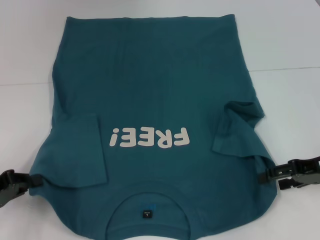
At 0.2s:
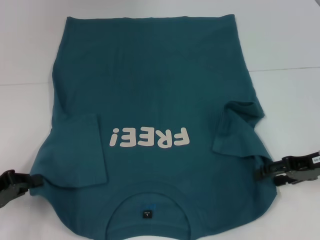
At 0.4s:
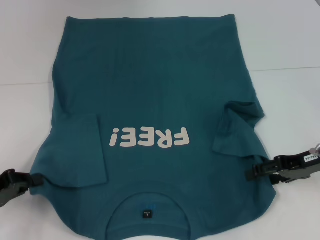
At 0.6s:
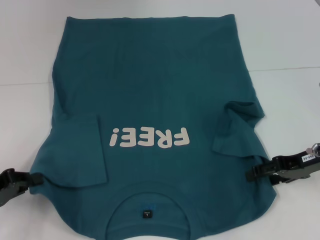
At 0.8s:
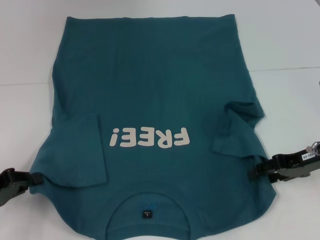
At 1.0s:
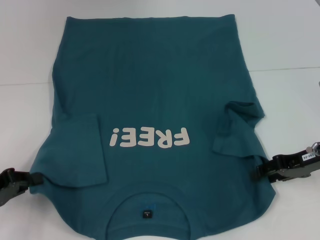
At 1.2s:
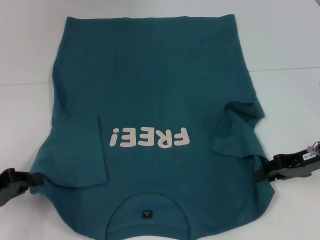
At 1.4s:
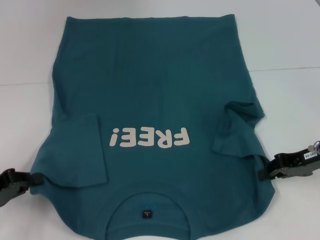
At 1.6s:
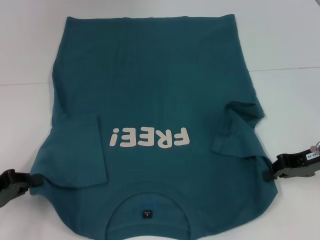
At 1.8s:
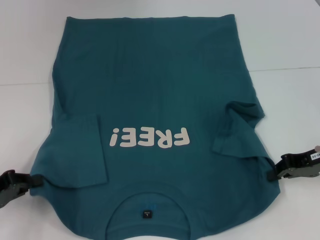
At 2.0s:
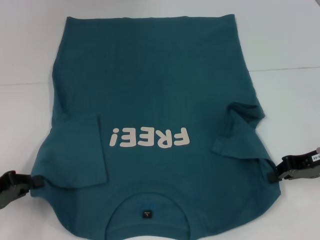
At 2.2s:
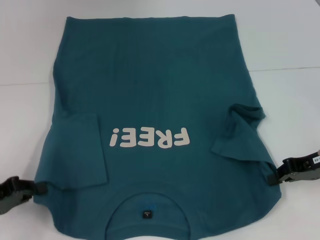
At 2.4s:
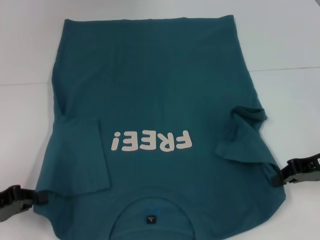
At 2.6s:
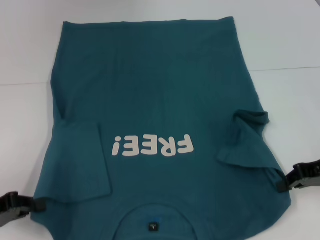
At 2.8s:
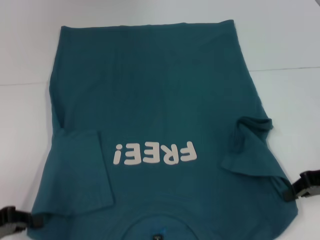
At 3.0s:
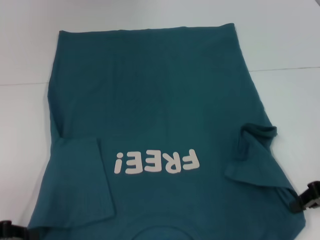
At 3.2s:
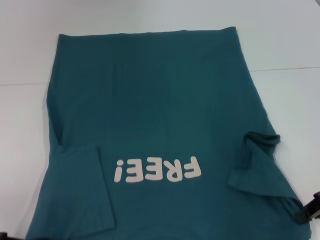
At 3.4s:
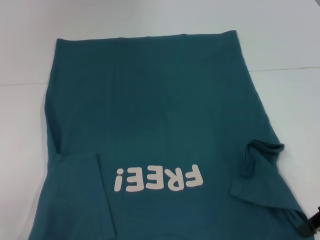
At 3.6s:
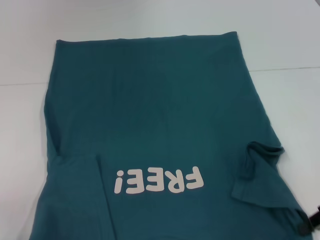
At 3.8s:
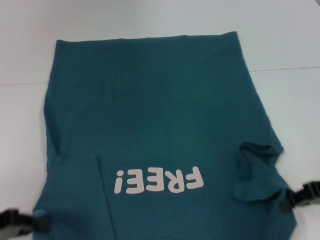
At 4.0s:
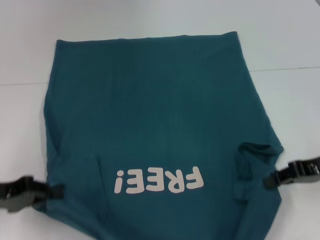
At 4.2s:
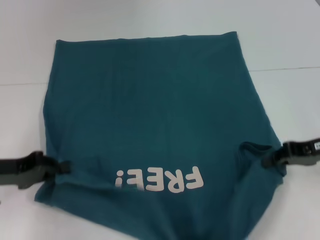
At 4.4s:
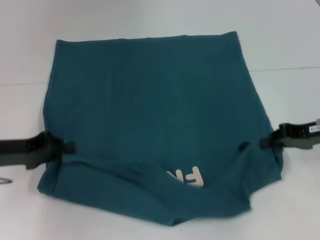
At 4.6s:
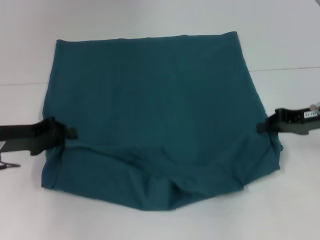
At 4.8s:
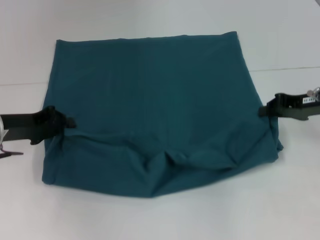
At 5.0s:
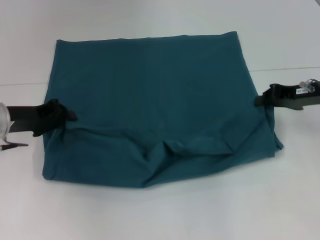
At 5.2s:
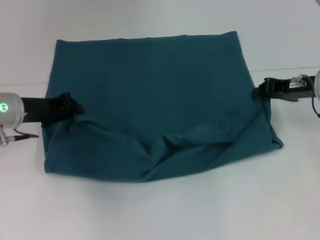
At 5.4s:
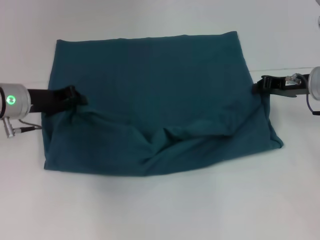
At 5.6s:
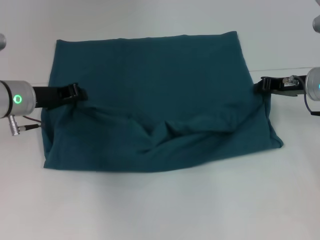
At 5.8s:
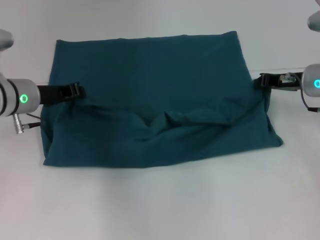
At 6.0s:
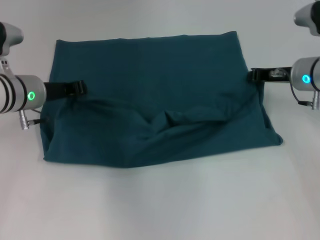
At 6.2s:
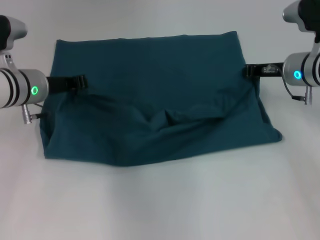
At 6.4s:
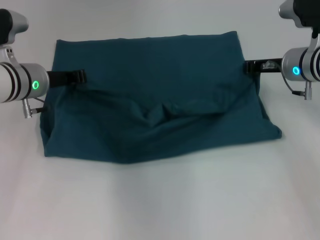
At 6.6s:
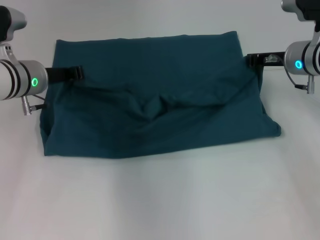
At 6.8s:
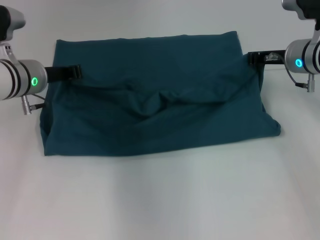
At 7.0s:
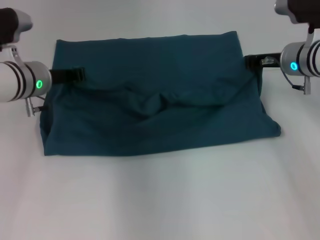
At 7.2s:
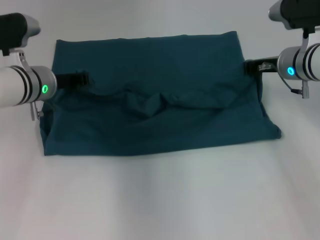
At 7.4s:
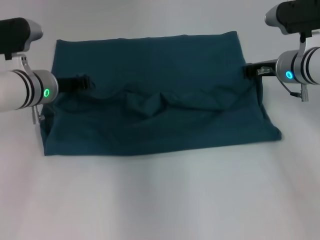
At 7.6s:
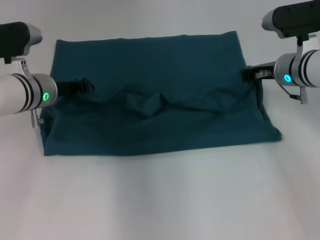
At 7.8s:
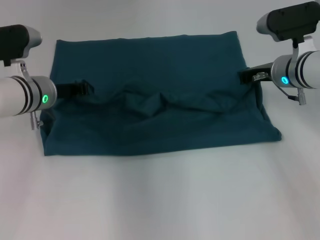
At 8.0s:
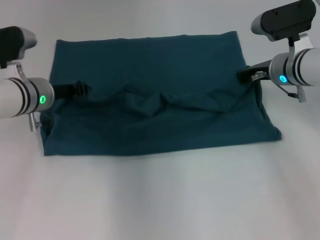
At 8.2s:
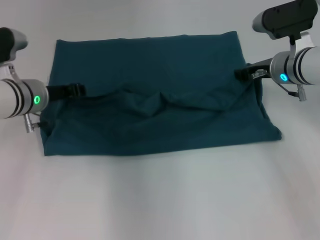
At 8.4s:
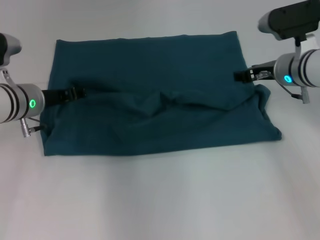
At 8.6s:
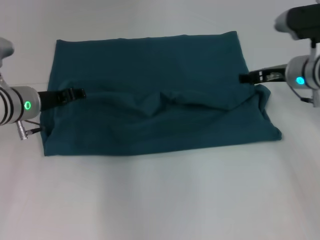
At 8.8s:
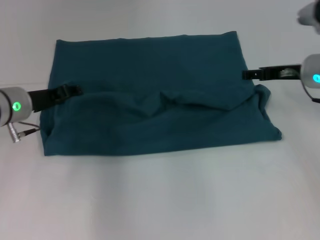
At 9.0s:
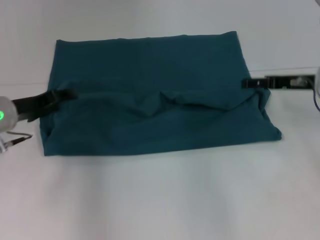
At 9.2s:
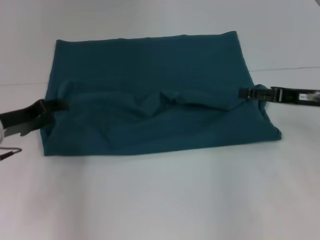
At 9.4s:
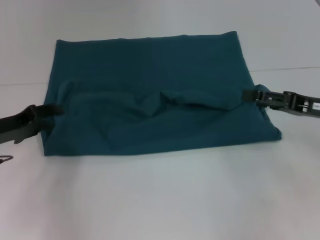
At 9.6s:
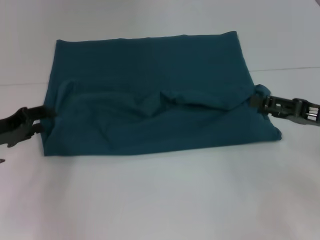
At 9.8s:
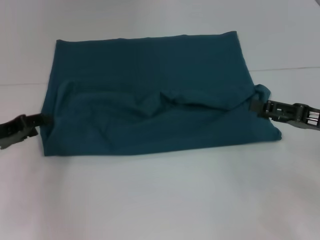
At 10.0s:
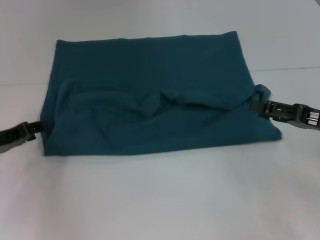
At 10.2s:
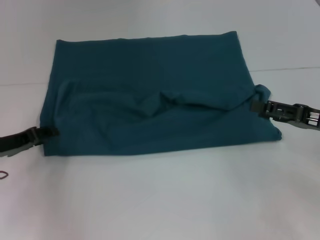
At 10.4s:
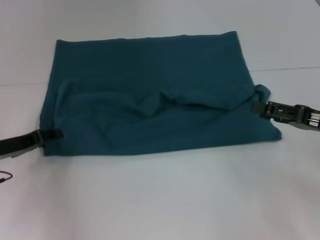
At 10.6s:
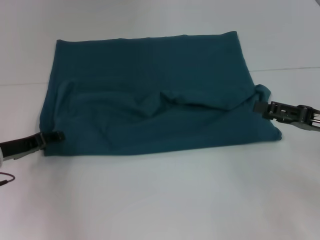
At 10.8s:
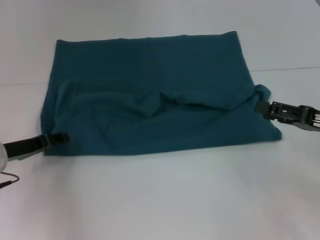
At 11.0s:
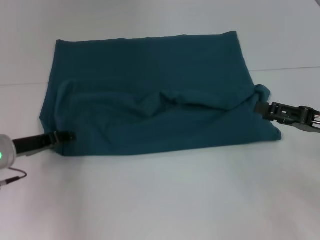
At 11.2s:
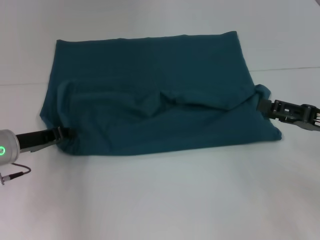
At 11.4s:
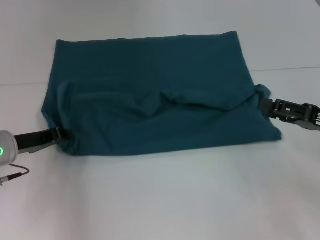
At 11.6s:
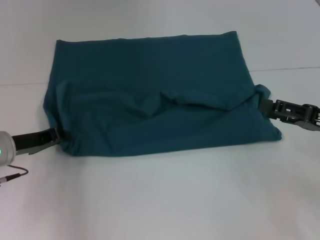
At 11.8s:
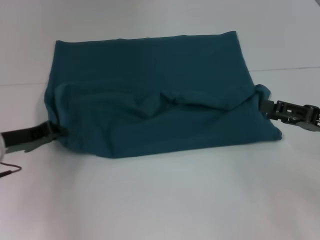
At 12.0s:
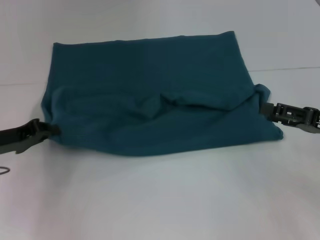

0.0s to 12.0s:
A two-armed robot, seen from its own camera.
Step, 2.0s to 9.0s: Fold the clothes to the left.
Step, 2.0s to 9.0s: Fold the clothes to the right.
0.0s to 1.6s: The right gripper closes up.
3.0s to 4.4s: The left gripper travels forward and to the right by roughly 10 cm. The right gripper moves about 5 cm.
4.4s to 6.0s: The left gripper heads forward and to the right, covering approximately 10 cm. The right gripper travels forward and to the left by approximately 10 cm.
6.0s to 7.6s: The grippers stay close to where they were, moving slightly.
7.6s to 9.0s: The left gripper moves to the left, about 5 cm, and opens. Meanwhile the right gripper travels backward and to the right by roughly 10 cm, and opens its fingers.
9.0s to 10.4s: The left gripper shifts by approximately 5 cm, while the right gripper is displaced backward by roughly 10 cm.
10.4s to 12.0s: The left gripper closes its fingers.

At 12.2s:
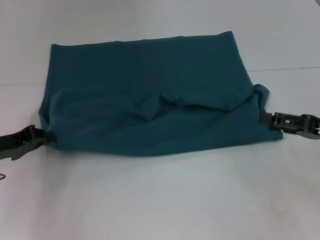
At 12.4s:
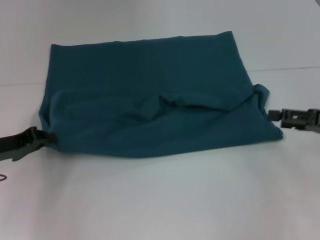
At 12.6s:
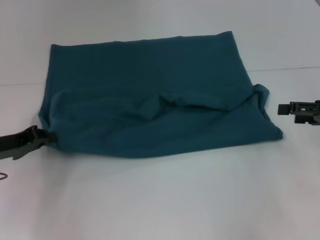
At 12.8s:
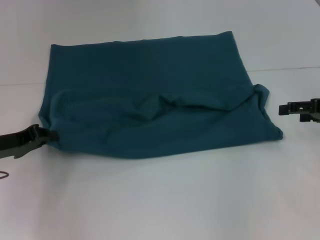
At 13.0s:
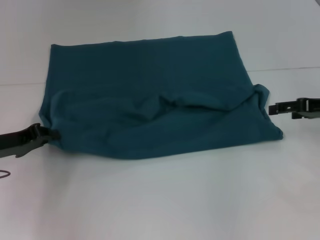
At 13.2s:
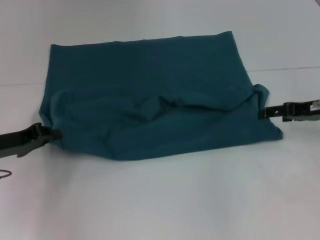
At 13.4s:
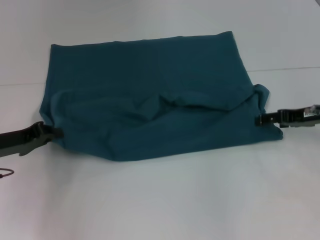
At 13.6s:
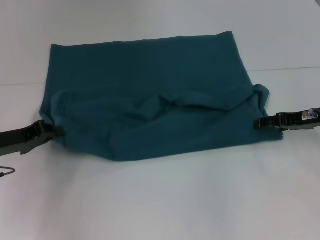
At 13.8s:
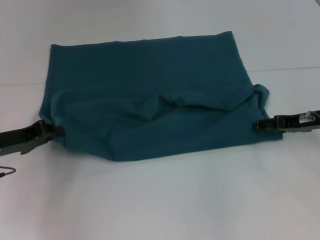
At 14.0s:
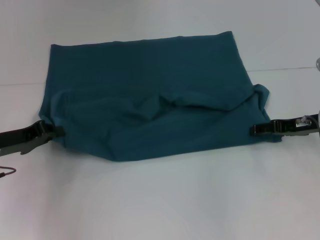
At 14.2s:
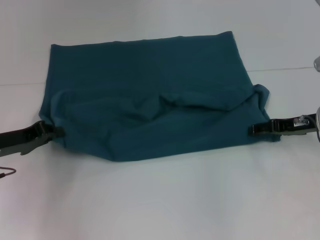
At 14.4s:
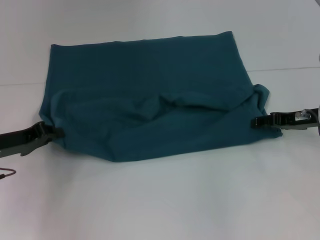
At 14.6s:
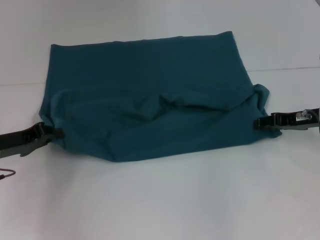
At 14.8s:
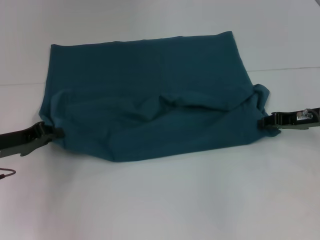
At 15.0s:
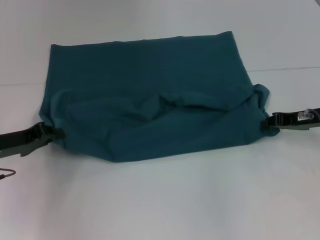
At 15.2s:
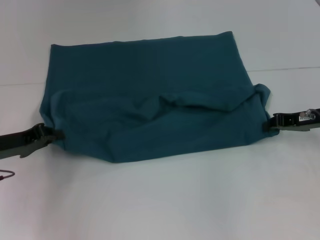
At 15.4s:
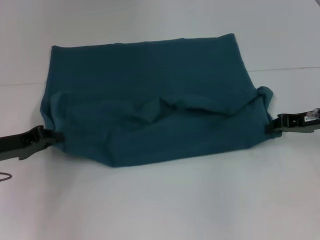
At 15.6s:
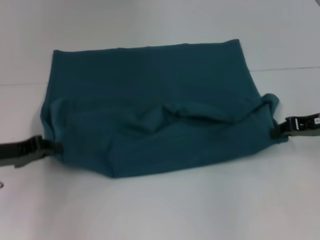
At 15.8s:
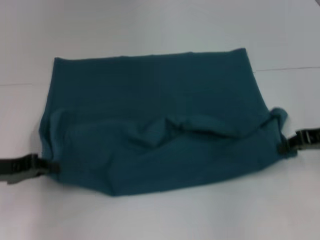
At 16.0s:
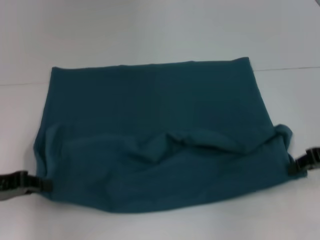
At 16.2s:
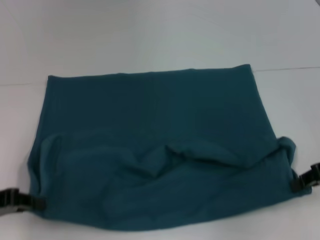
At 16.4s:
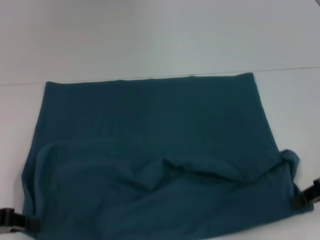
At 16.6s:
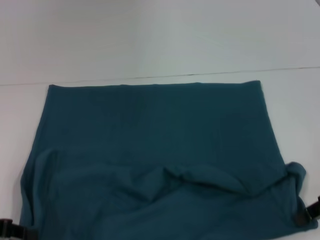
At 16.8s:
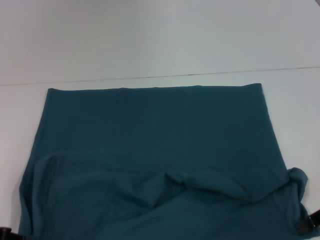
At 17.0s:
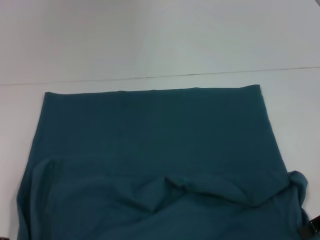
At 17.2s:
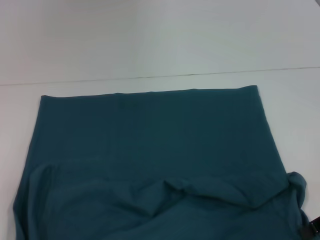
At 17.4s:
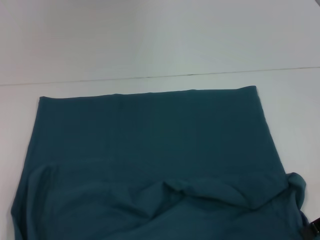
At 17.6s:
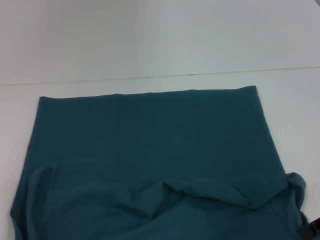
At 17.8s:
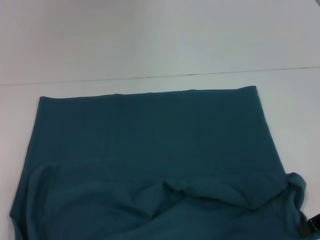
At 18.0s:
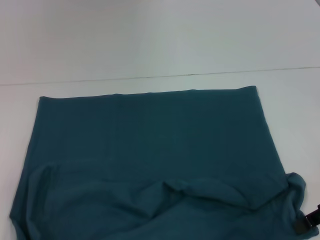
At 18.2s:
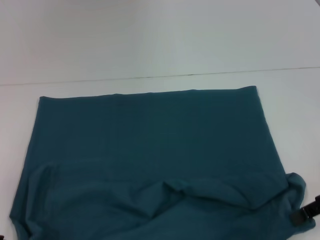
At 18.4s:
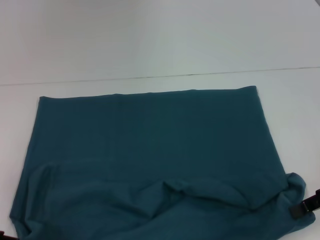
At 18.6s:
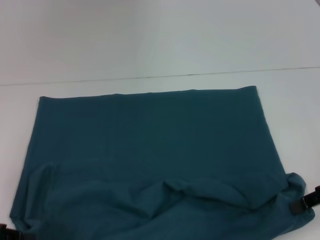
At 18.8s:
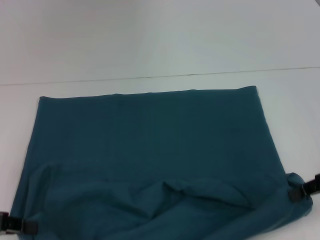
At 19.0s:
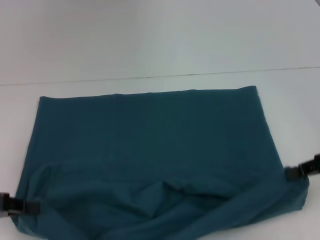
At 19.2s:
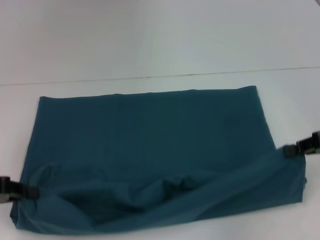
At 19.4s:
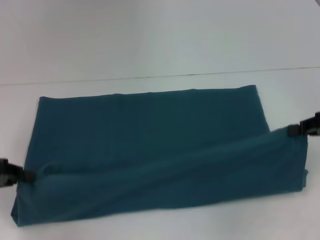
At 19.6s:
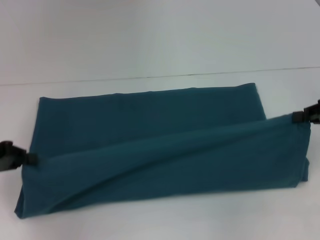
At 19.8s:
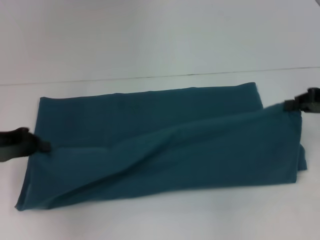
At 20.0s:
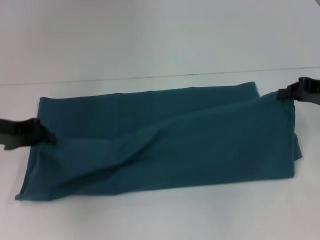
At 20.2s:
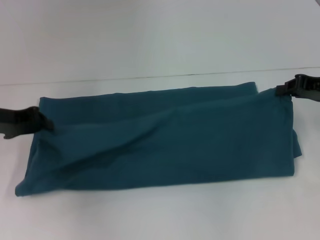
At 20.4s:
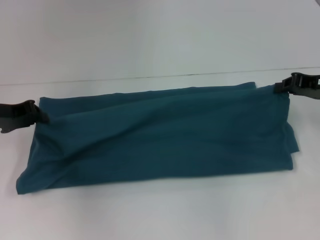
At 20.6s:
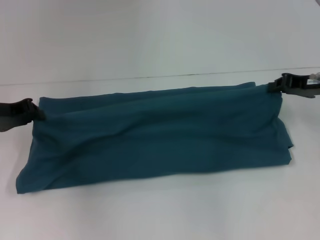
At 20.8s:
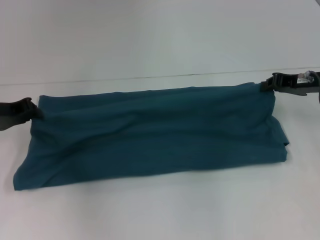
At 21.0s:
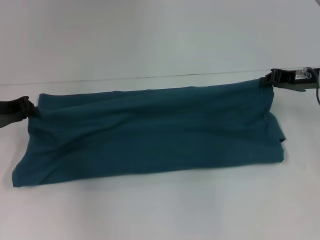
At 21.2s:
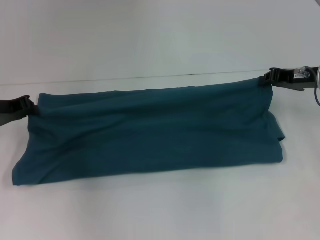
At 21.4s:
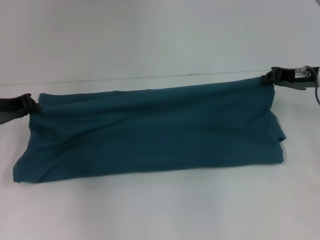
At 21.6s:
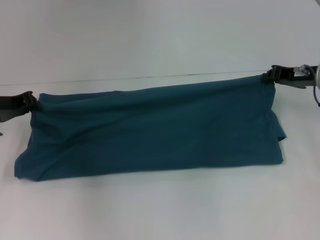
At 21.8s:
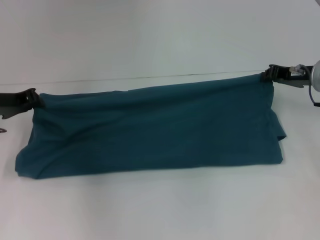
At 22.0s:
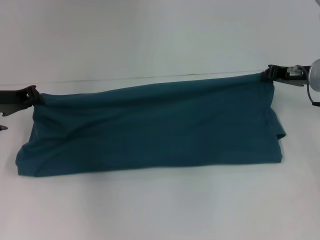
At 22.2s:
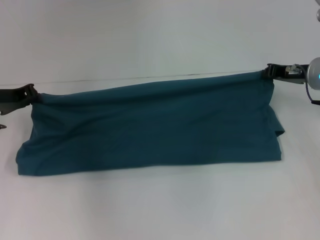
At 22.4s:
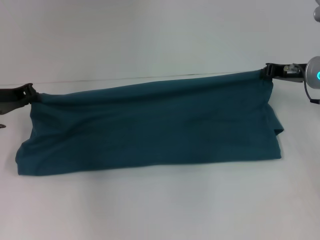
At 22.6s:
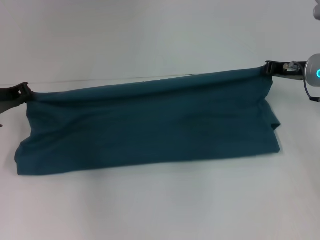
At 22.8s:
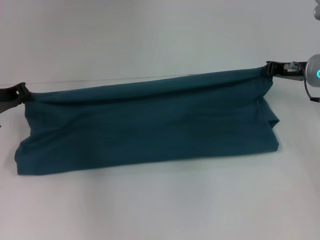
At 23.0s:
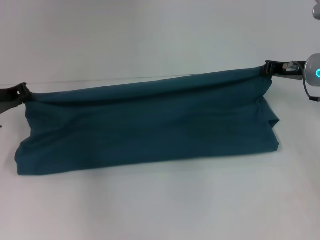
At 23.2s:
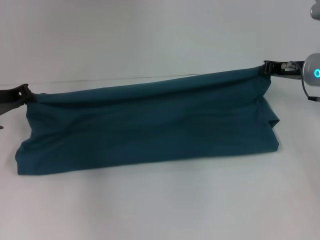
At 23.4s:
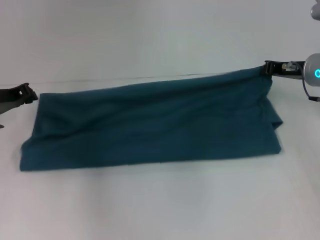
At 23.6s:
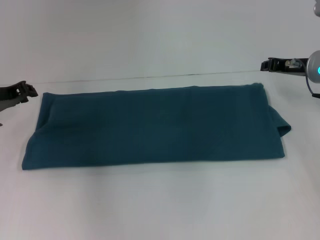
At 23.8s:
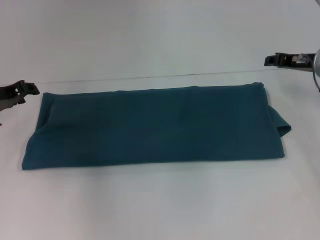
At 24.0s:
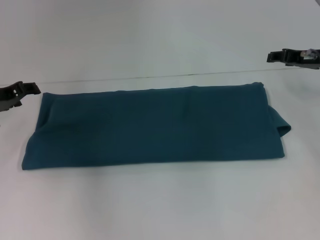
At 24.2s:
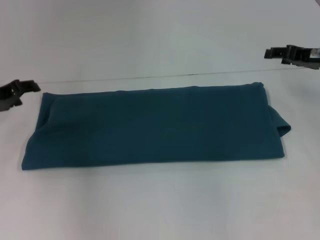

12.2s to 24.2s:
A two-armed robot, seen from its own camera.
Step, 12.2s to 16.2s: Pull the clothes with your left hand.
Step, 12.2s to 16.2s: Pull the clothes with your right hand.
Step, 16.4s to 23.6s: Fold the clothes to the right.
12.2s to 13.8s: The right gripper heads forward, covering approximately 10 cm.
13.8s to 15.2s: The right gripper closes up.
15.2s to 16.6s: The two grippers go some 10 cm backward.
16.6s to 18.2s: The grippers make only small movements.
18.2s to 19.8s: Both grippers move forward, about 10 cm.
19.8s to 21.2s: The left gripper travels forward by roughly 5 cm, while the right gripper travels forward and to the left by about 10 cm.
21.2s to 22.6s: The grippers move only a little.
22.6s to 24.2s: The right gripper opens its fingers; the left gripper opens.
